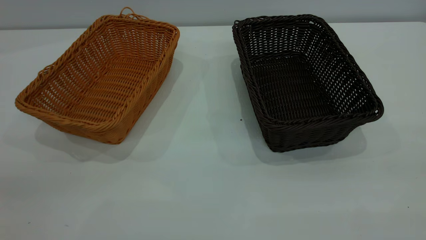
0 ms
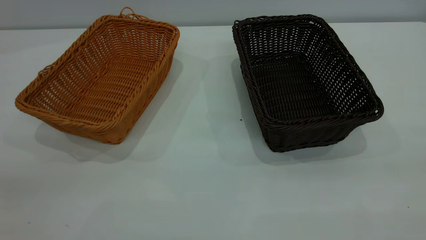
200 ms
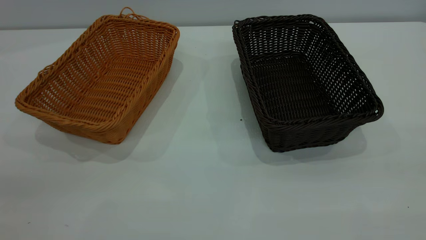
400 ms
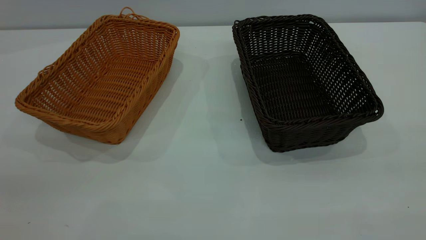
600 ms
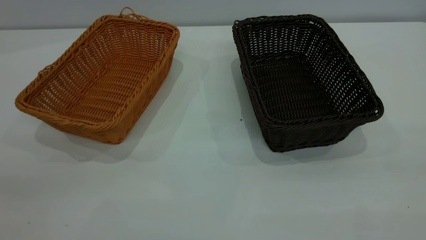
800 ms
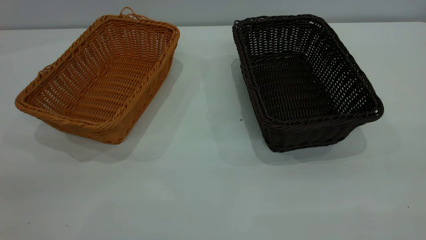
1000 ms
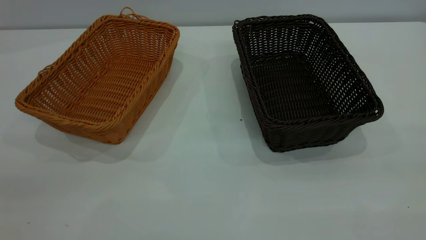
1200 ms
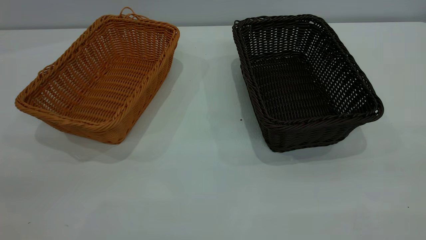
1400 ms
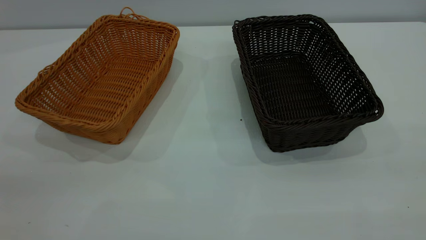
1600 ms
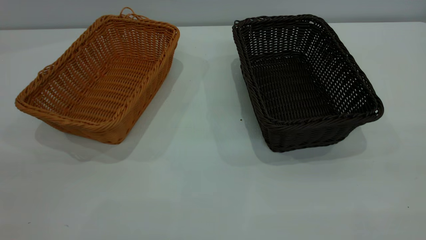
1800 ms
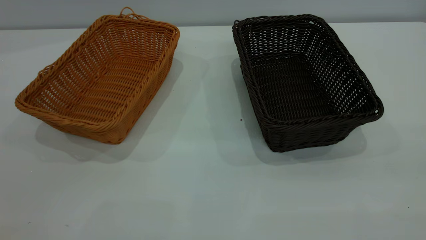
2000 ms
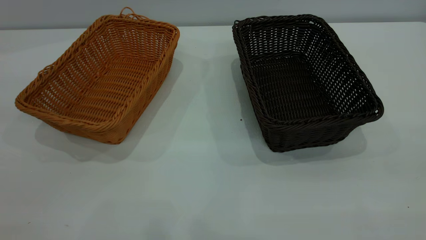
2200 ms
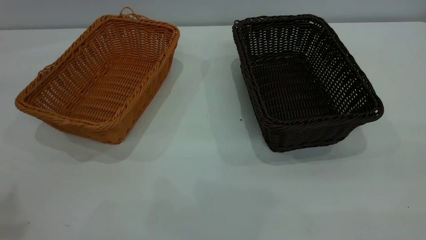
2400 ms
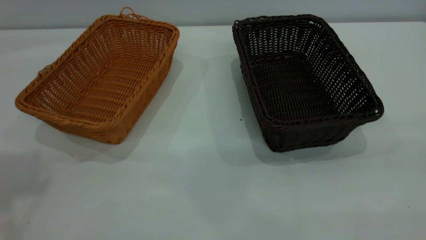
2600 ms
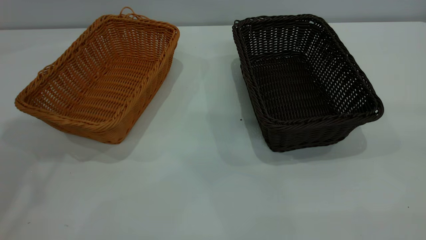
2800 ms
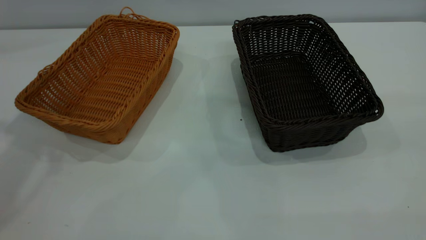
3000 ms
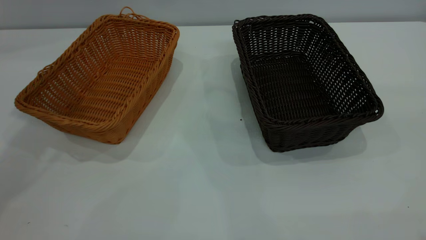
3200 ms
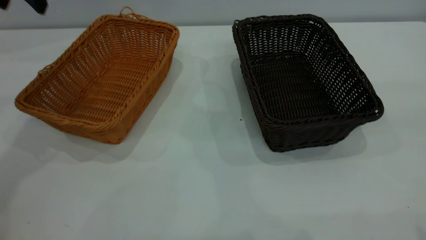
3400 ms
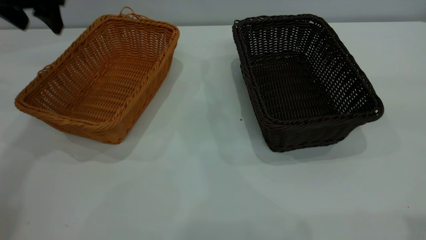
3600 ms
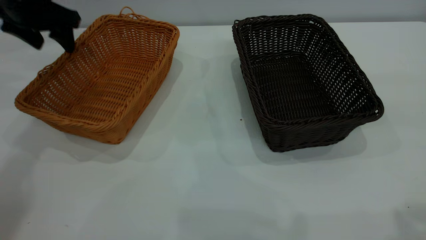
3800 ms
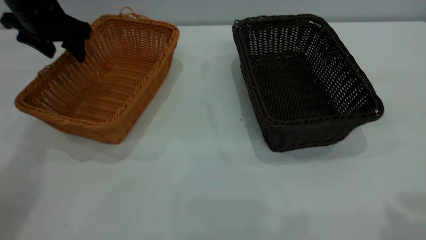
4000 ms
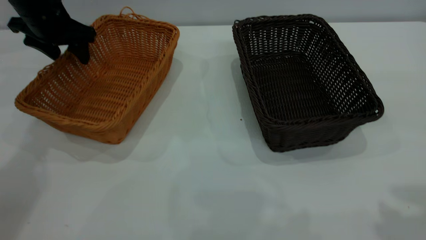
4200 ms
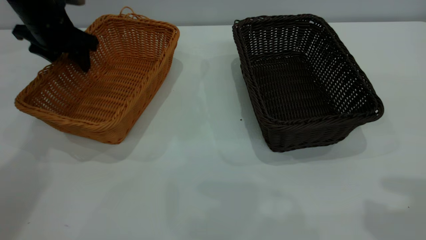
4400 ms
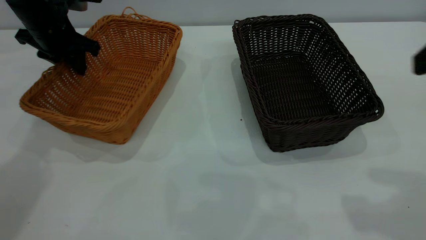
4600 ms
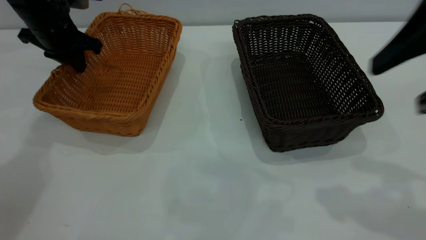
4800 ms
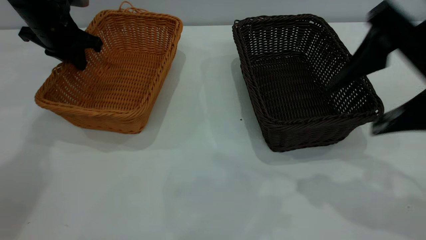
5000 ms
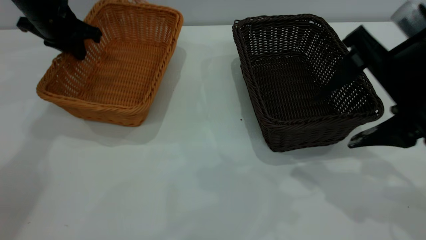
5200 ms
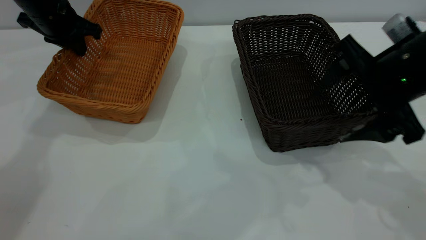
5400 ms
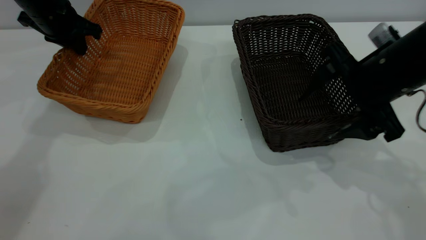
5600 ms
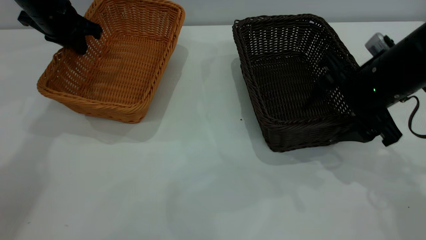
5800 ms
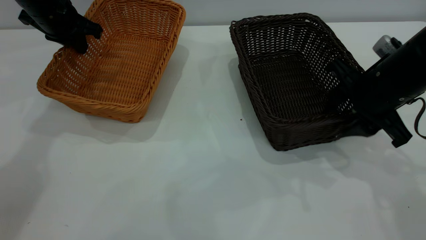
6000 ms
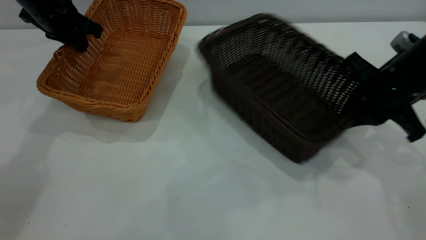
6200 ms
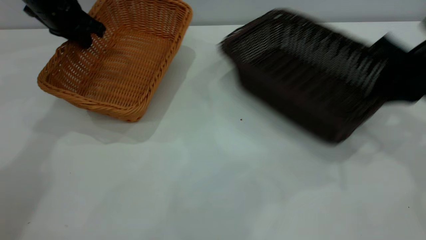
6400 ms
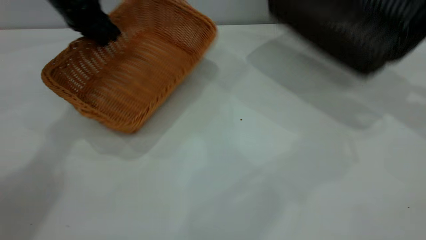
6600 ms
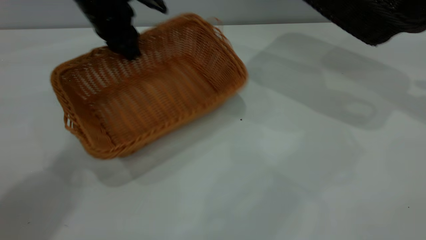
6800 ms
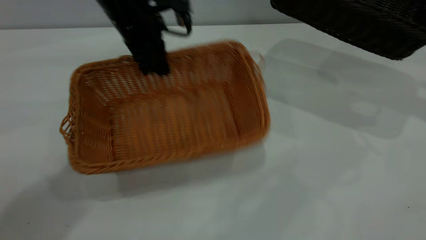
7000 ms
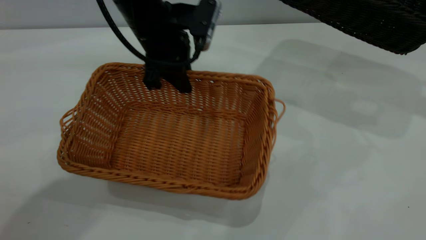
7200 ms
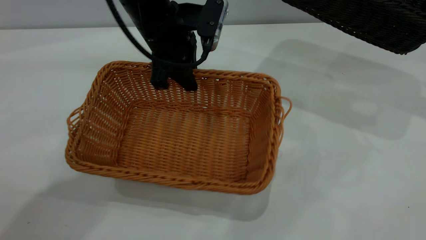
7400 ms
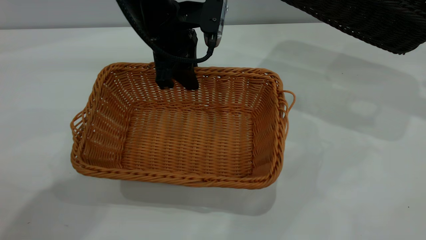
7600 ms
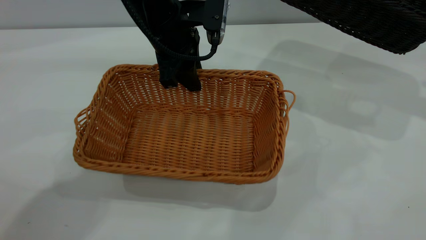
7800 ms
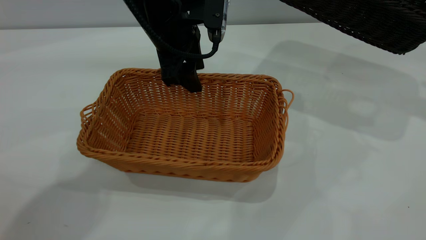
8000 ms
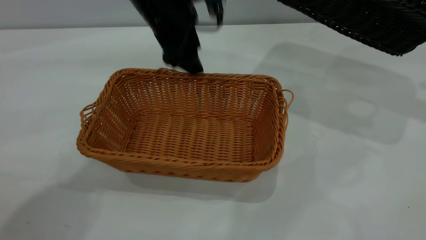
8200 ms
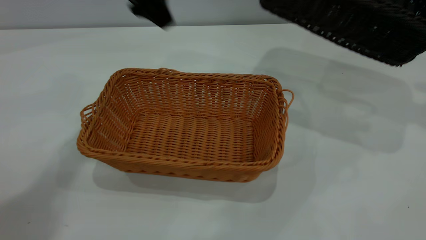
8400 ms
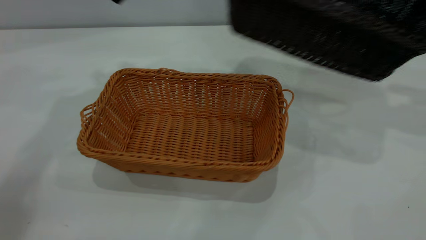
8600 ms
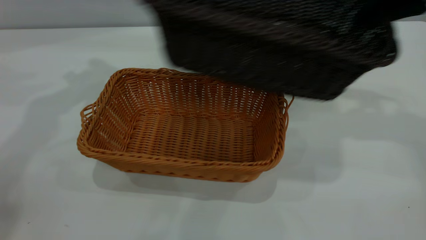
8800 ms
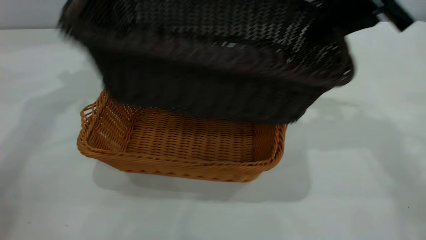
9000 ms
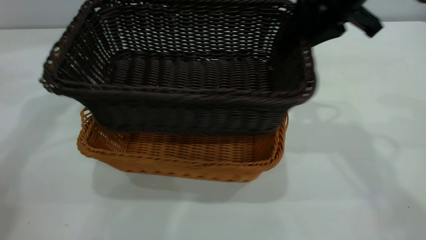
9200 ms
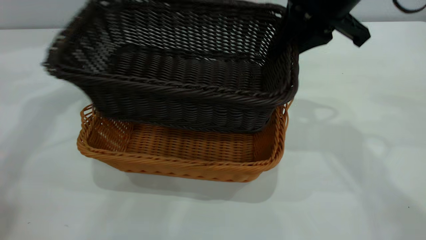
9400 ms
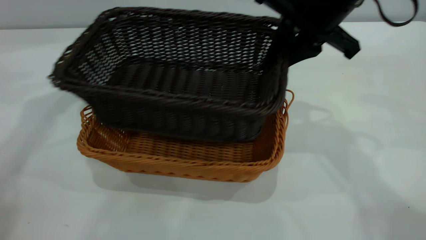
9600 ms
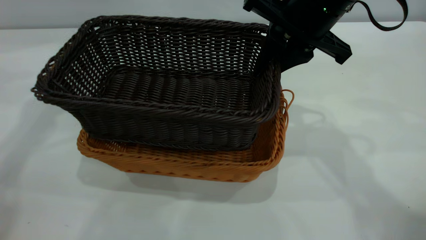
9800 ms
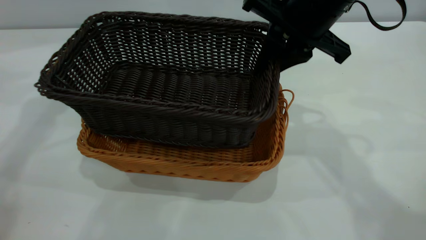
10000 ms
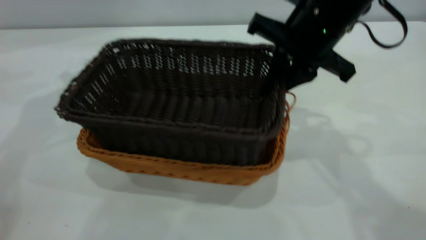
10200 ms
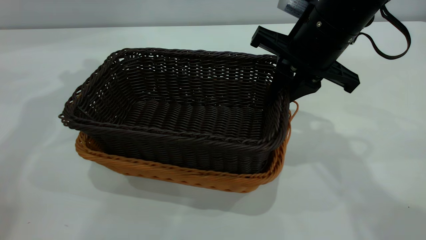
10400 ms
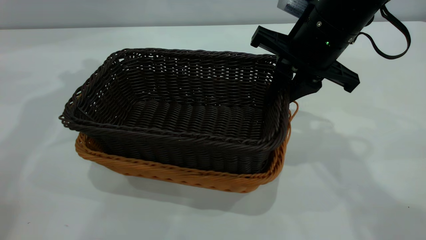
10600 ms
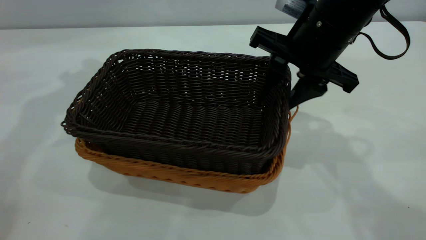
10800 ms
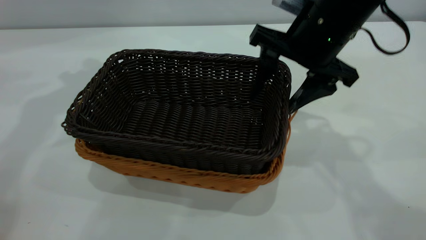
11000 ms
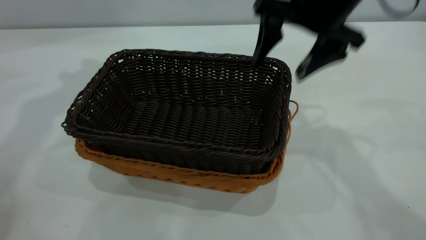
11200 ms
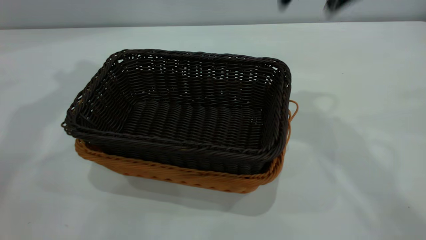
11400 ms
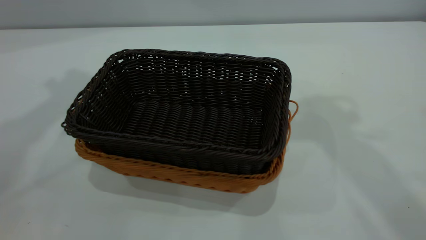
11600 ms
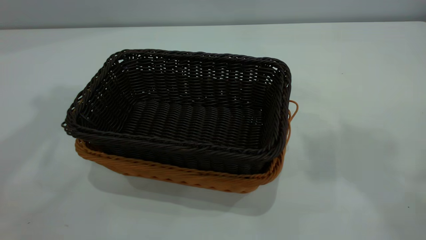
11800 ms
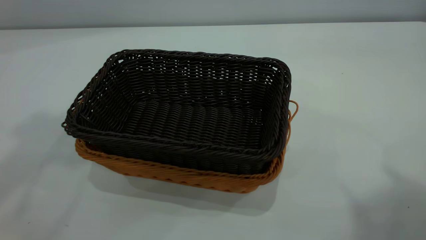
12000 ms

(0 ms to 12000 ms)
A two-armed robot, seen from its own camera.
Task of the whole recording: the left gripper grasp the brown basket and place it in the center of the table, the right gripper grasp the black basket and place it inside the brown one.
Step, 0 ms - 6400 ms: Pick up the light basket with the right gripper.
Step, 6600 ms - 8200 ms: Place the light-colored basket in the center.
Step, 8400 ms - 11200 ms: Place the dark basket on top of the light basket.
0 ms - 1600 ms: Both grippers stay about where they are.
3000 ms - 4400 ms: The left gripper travels downward and forward by some 25 cm.
4400 ms - 6000 ms: The left gripper closes its fingers; the right gripper is displaced downward and forward by some 20 cm, and closes.
6000 ms - 7600 ms: The right gripper is displaced to the right and upward by roughly 25 cm; the left gripper shifts approximately 20 cm to the right and backward.
7600 ms - 9000 ms: The left gripper shifts some 20 cm to the left and upward, and opens its fingers; the right gripper goes roughly 20 cm to the left.
9000 ms - 10400 ms: The right gripper goes some 10 cm downward and to the left.
10400 ms - 12000 ms: The two grippers go roughly 35 cm upward and backward. The right gripper opens up.
